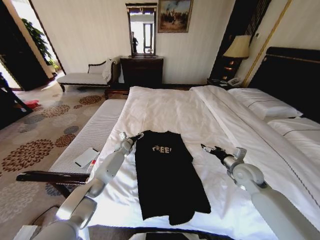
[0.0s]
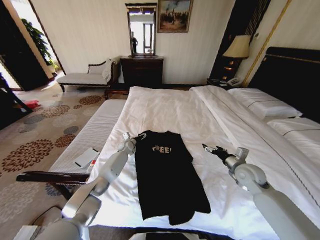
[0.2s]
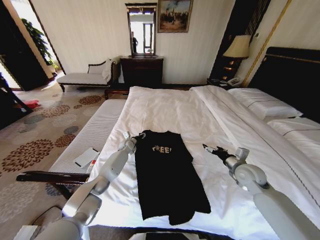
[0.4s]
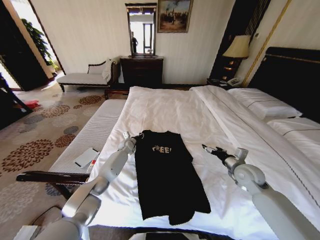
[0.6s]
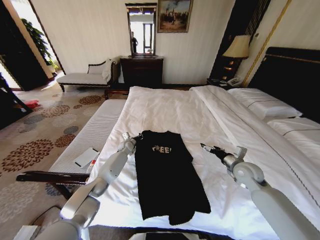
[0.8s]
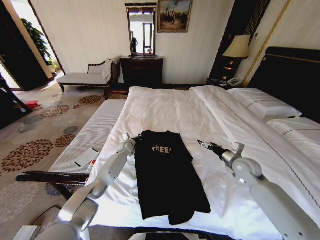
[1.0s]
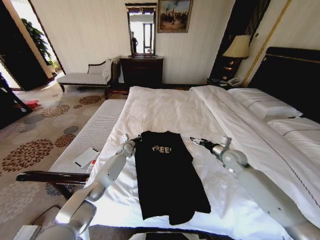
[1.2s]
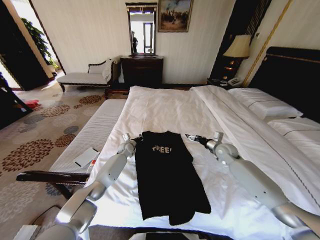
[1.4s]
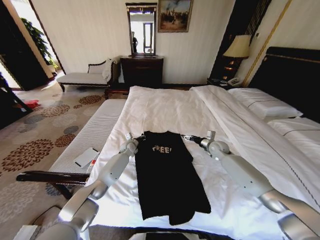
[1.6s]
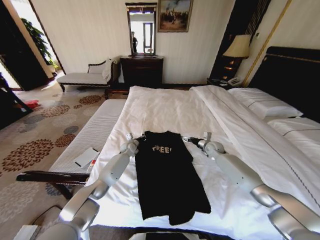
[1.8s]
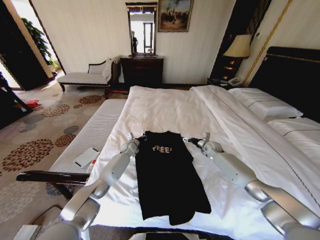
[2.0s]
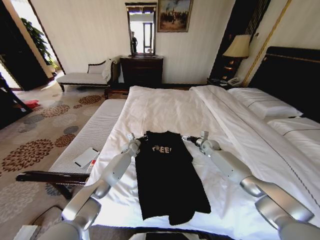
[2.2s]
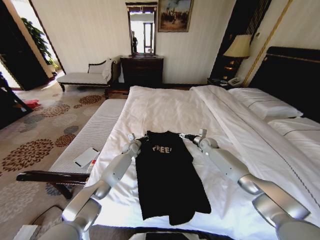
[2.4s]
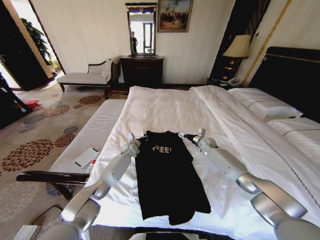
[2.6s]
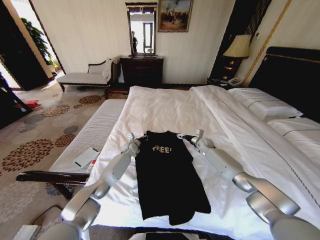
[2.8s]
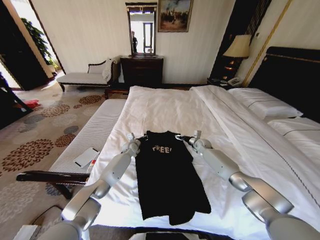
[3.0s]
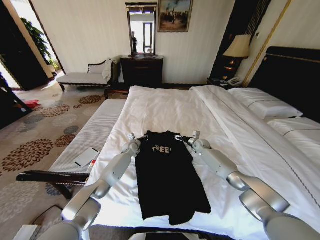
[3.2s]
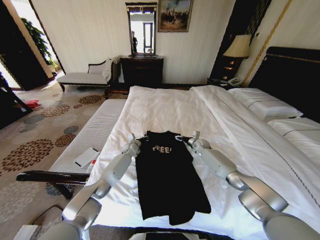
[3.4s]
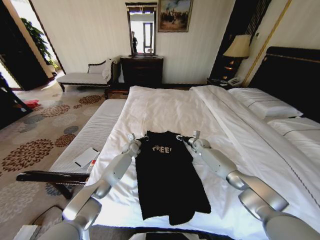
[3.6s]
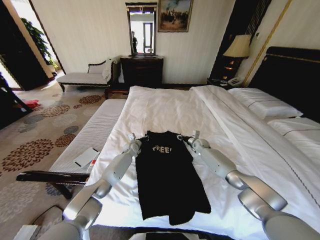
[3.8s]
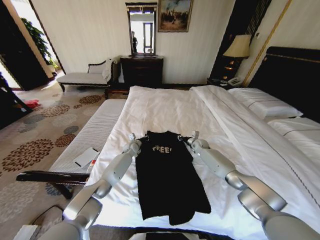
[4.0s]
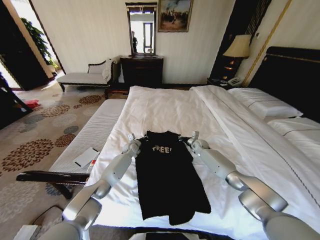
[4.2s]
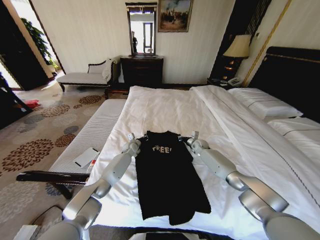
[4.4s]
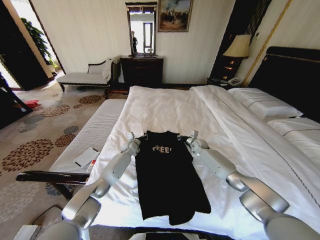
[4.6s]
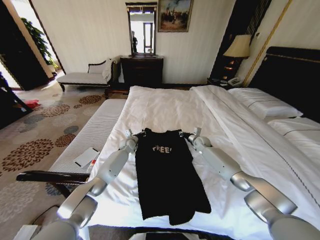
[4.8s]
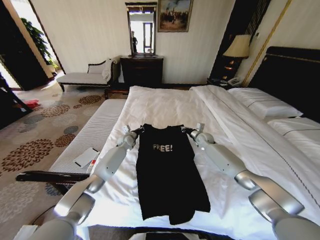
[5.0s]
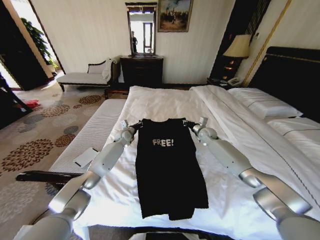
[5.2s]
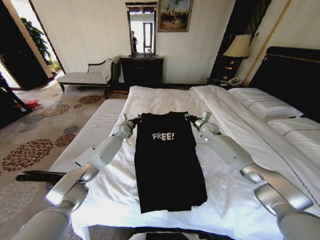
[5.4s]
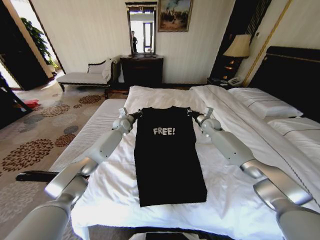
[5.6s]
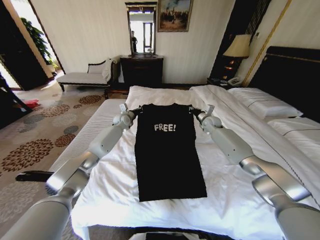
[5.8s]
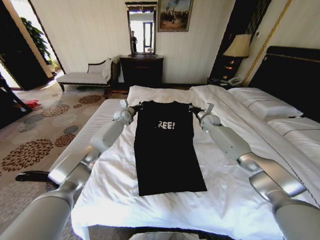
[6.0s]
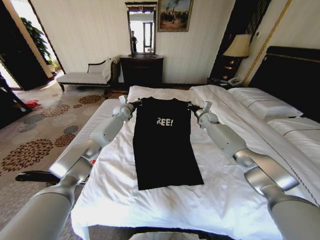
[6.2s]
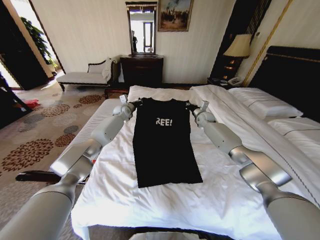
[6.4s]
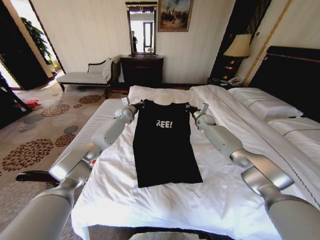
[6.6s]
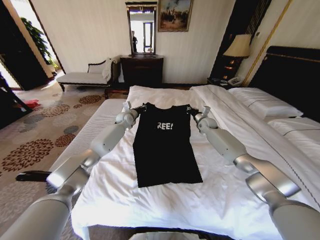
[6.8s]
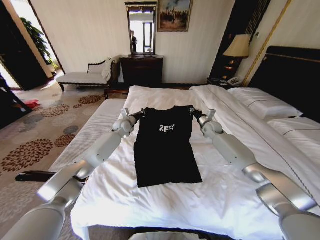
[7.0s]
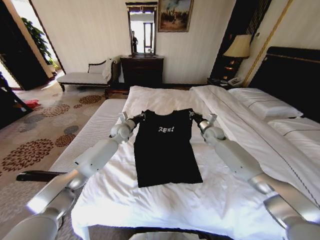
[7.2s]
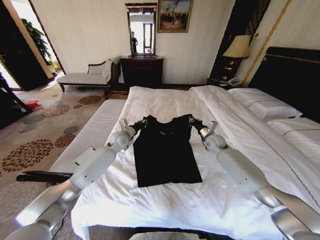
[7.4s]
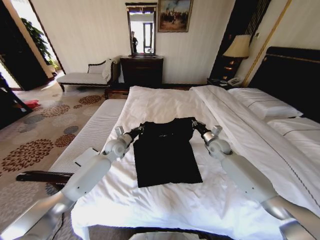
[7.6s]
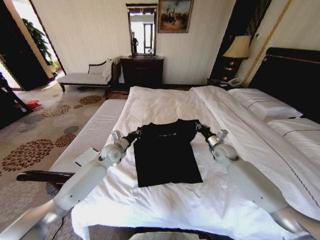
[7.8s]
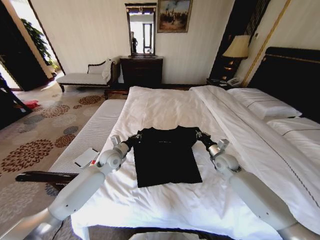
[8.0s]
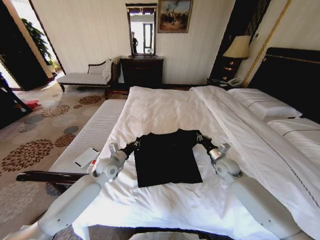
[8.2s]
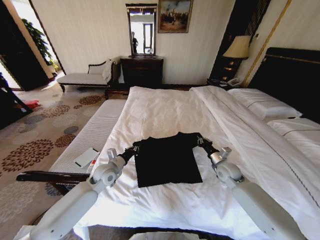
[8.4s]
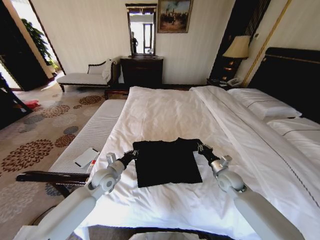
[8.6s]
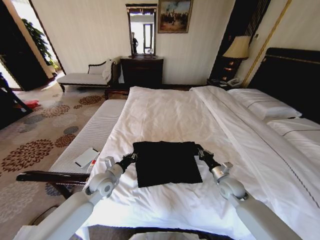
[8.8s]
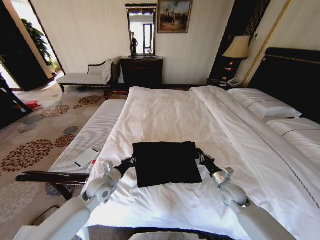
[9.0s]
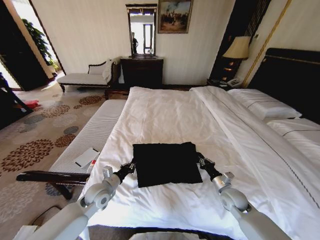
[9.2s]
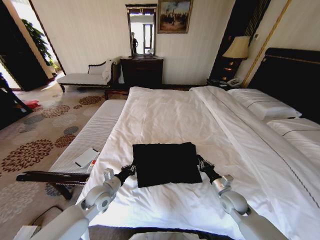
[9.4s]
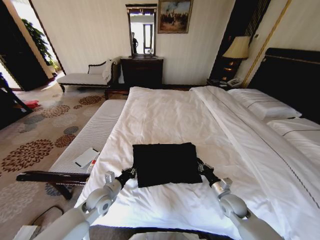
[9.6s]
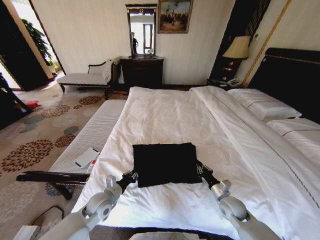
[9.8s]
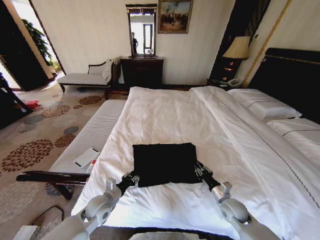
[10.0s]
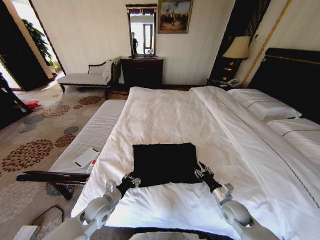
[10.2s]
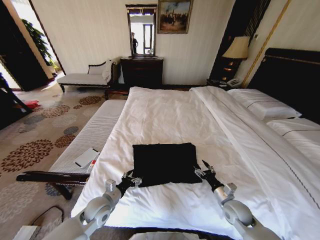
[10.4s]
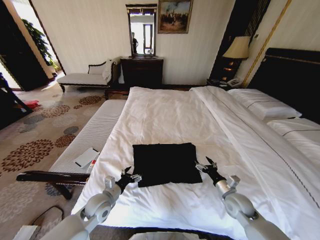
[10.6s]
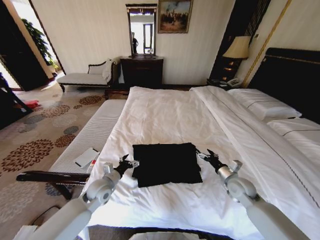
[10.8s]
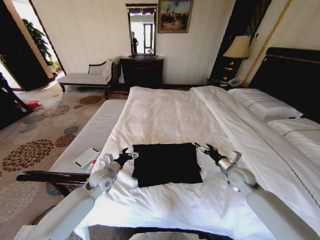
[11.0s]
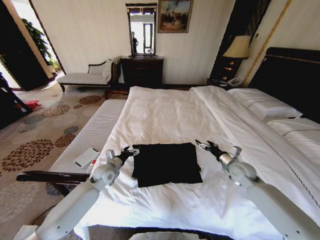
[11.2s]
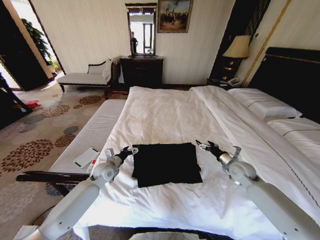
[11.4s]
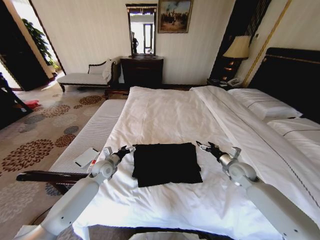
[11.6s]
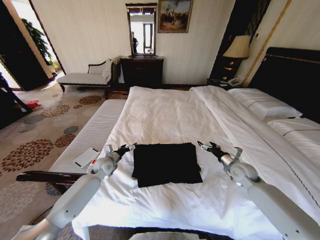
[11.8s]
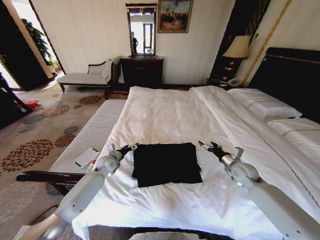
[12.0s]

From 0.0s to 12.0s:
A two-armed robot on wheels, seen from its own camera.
Task of the whole recording: Fold the clothes on the bed.
From 0.0s to 1.6s: The right gripper goes approximately 15 cm forward. Meanwhile the left gripper closes its fingers.
From 1.6s to 3.0s: The right gripper shifts roughly 10 cm forward and downward.
From 3.0s to 4.4s: The right gripper closes its fingers.
From 4.4s to 6.0s: The right gripper goes some 15 cm upward. The left gripper travels upward and forward by about 20 cm.
From 6.0s to 7.6s: Both grippers travel together backward and downward, some 20 cm.
From 7.6s to 9.0s: The left gripper heads backward, covering about 15 cm, while the right gripper moves backward and downward, roughly 20 cm.
From 9.0s to 10.4s: Both grippers travel together backward, about 5 cm. The left gripper opens up. The right gripper opens its fingers.
From 10.4s to 12.0s: The left gripper travels forward by approximately 20 cm, while the right gripper heads forward, upward and to the right, covering some 20 cm.

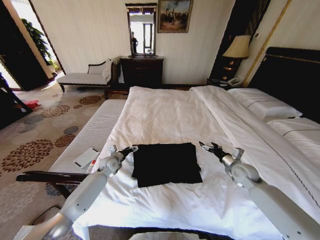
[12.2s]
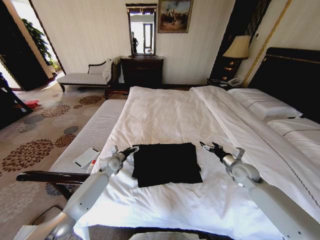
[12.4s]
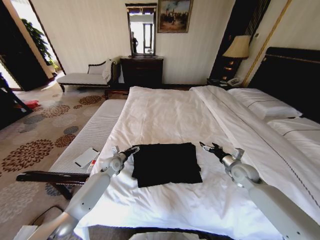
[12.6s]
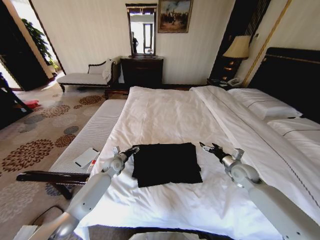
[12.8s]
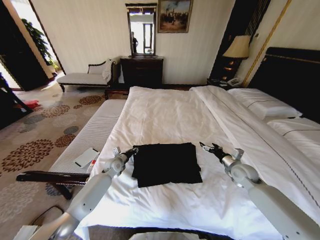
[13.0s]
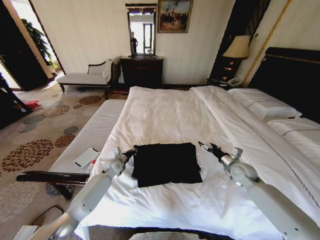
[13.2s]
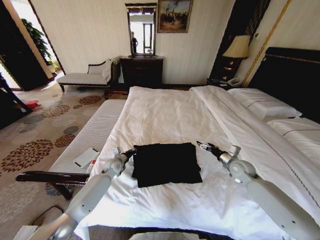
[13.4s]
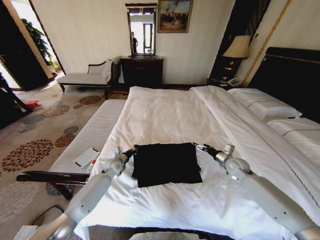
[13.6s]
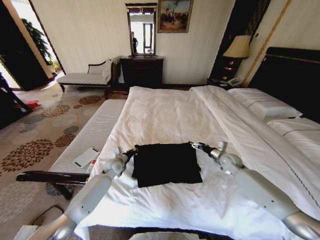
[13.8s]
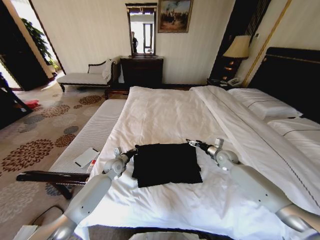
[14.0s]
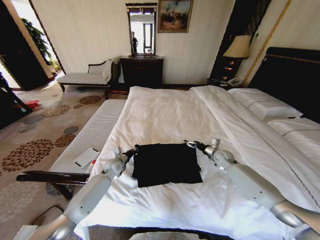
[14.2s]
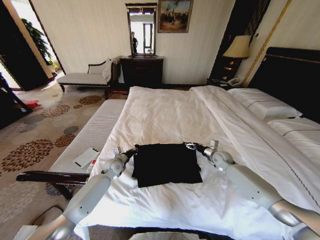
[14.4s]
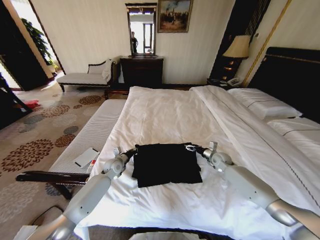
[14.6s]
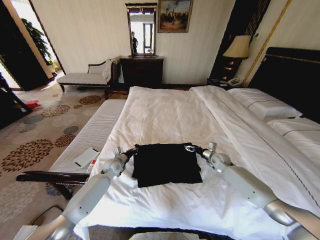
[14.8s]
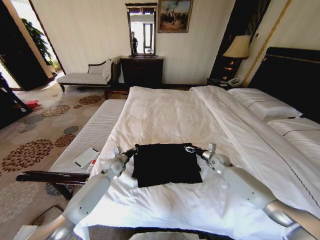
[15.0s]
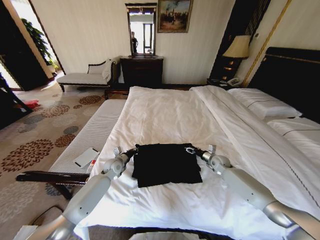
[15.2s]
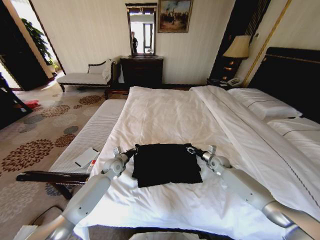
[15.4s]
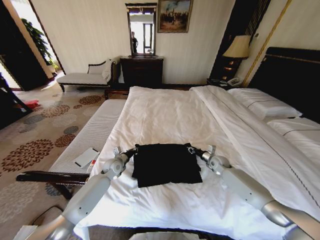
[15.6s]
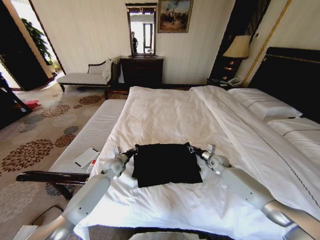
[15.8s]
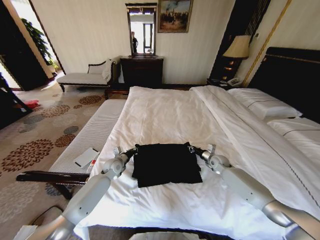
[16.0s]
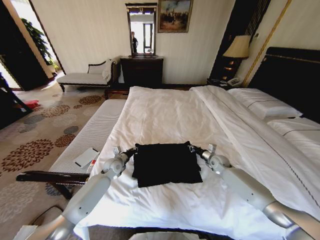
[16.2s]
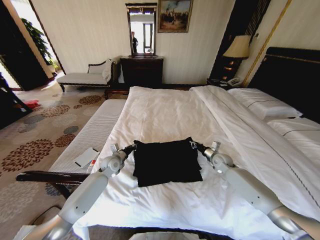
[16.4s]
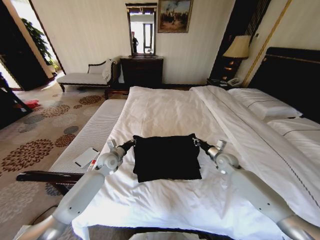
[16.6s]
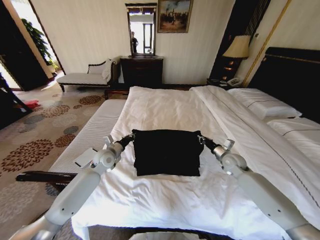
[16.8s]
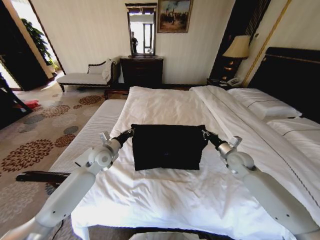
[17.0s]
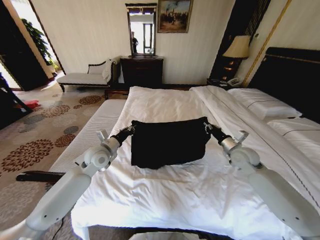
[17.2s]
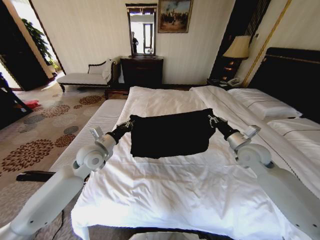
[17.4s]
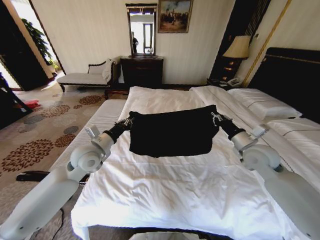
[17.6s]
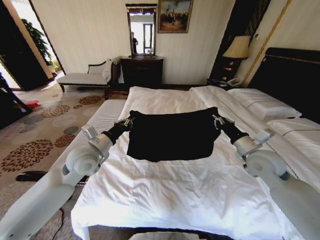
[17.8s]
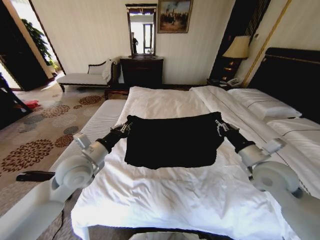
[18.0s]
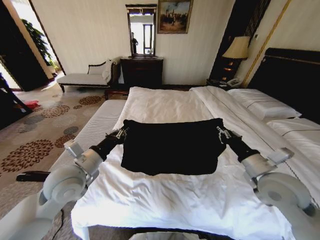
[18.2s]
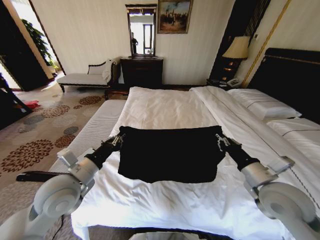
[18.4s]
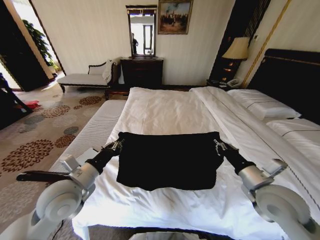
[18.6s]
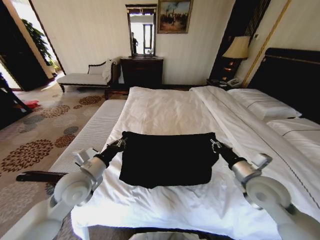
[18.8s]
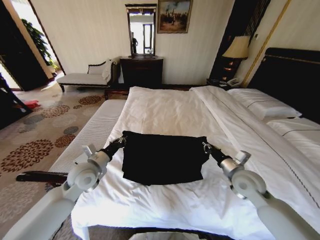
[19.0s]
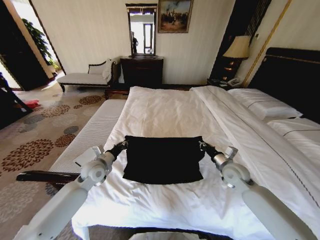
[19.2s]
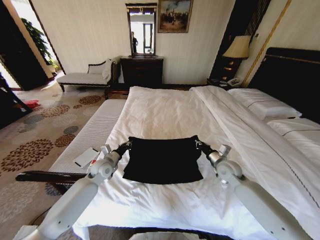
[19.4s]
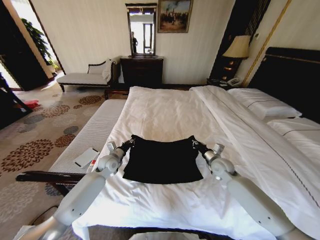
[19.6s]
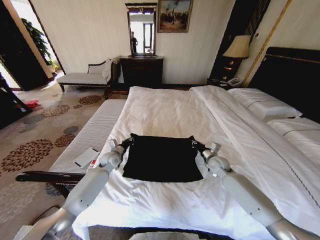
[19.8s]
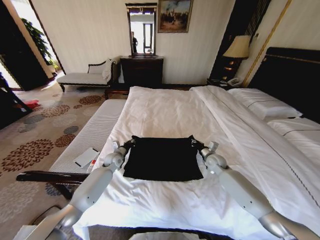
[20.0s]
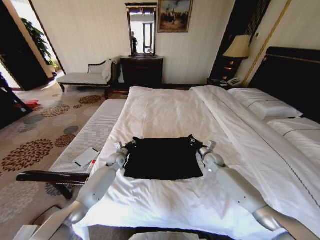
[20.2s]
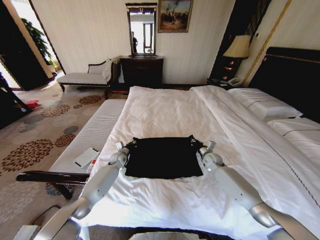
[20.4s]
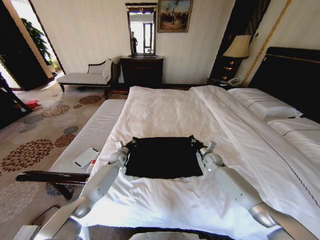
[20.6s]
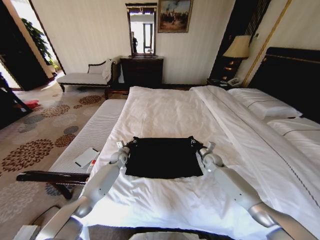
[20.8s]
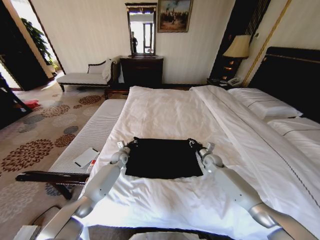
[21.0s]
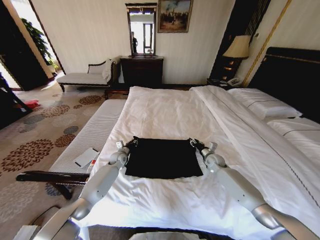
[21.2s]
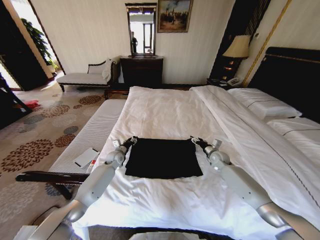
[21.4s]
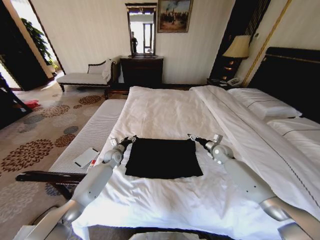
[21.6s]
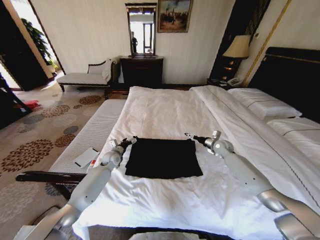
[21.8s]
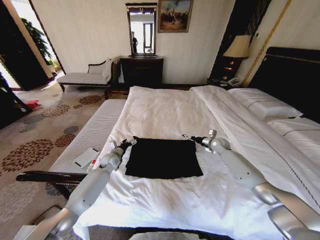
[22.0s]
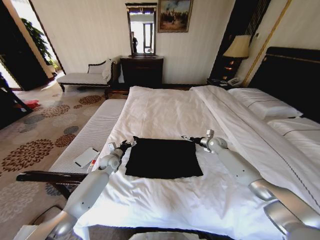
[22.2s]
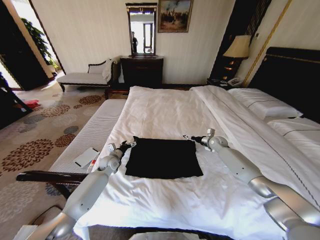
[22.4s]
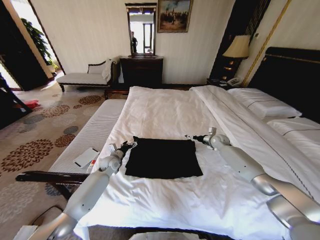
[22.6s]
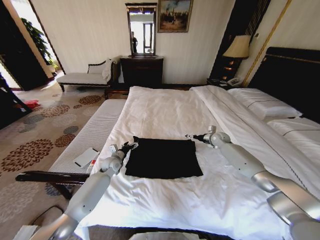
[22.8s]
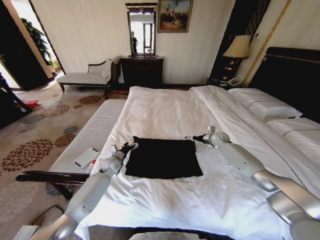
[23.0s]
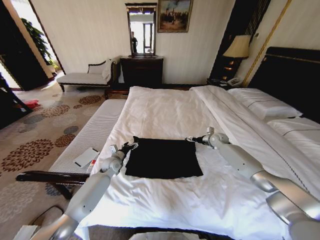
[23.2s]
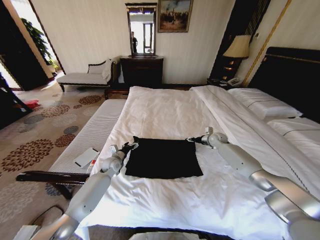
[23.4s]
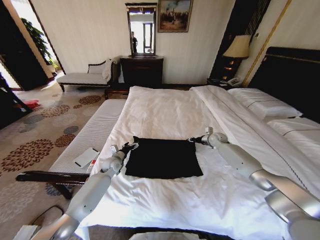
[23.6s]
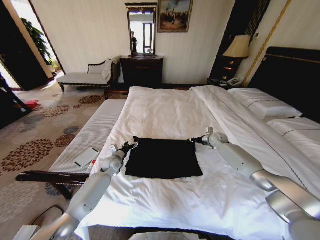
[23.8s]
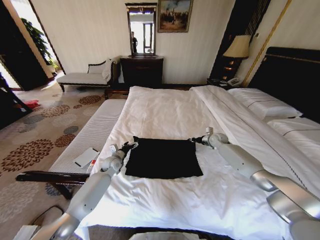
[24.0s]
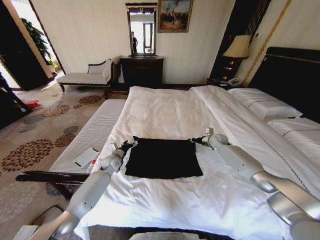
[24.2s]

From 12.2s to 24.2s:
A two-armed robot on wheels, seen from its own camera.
Task of the whole recording: Fold the clothes on the bed.
From 12.2s to 13.8s: The left gripper closes, while the right gripper travels forward by some 5 cm.
From 13.8s to 15.2s: The right gripper goes about 5 cm downward.
From 15.2s to 16.6s: The grippers both shift upward by roughly 5 cm. The right gripper closes.
From 16.6s to 18.2s: The left gripper shifts approximately 25 cm upward and backward. The right gripper is displaced backward and upward by about 25 cm.
From 18.2s to 19.8s: The left gripper shifts some 30 cm downward and forward, while the right gripper moves forward and downward, roughly 25 cm.
From 19.8s to 21.2s: The right gripper moves about 5 cm, and opens up. Meanwhile the left gripper shifts by roughly 5 cm.
From 21.2s to 22.6s: The right gripper heads forward and upward, covering about 10 cm, and opens. The left gripper ends up about 5 cm from where it was, and opens.
From 22.6s to 24.2s: The right gripper closes up.
